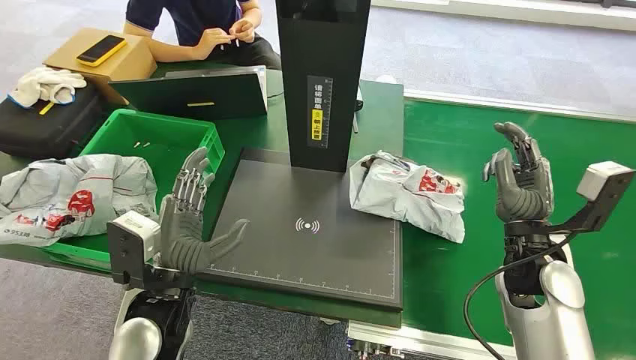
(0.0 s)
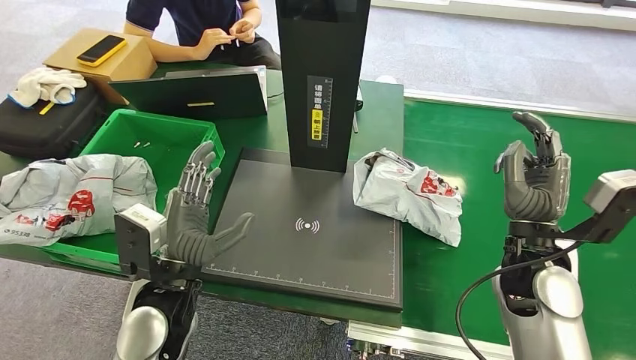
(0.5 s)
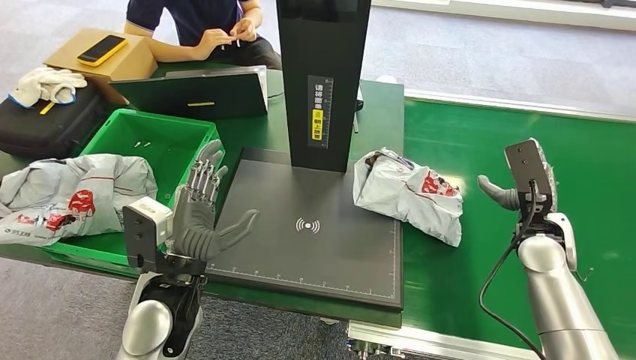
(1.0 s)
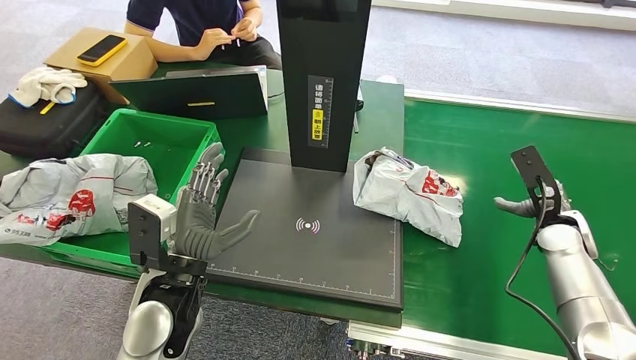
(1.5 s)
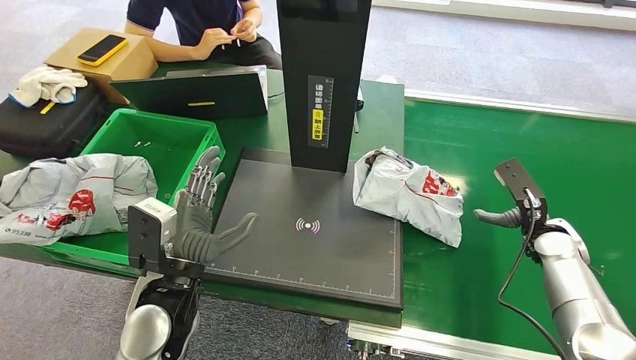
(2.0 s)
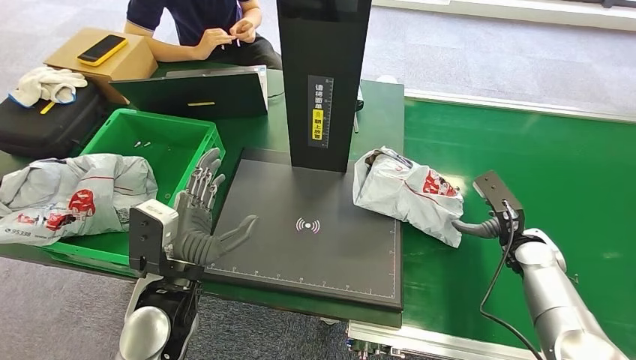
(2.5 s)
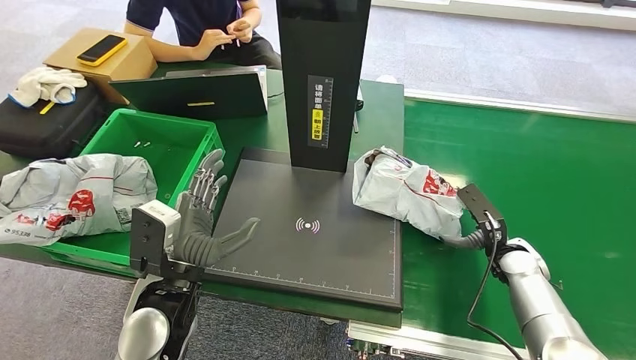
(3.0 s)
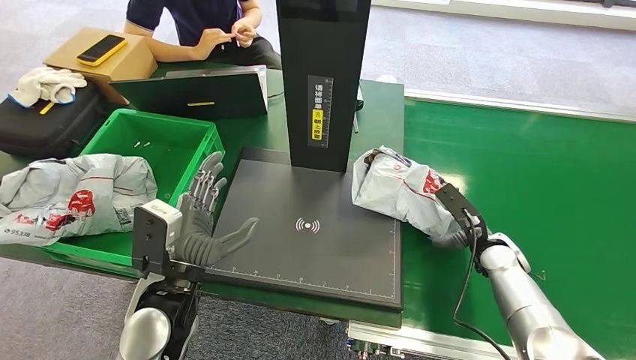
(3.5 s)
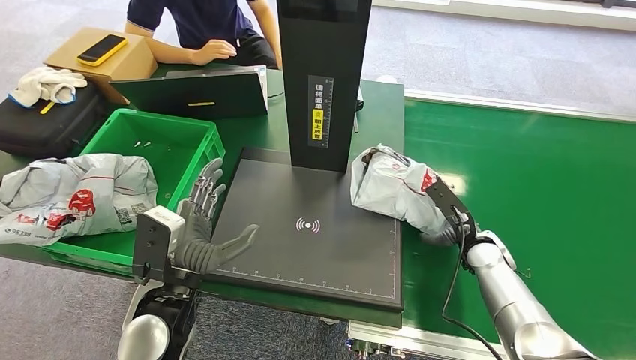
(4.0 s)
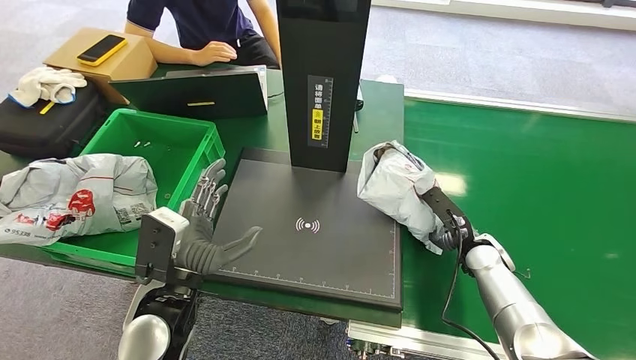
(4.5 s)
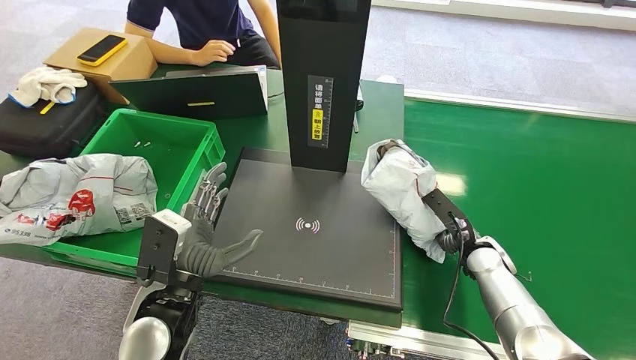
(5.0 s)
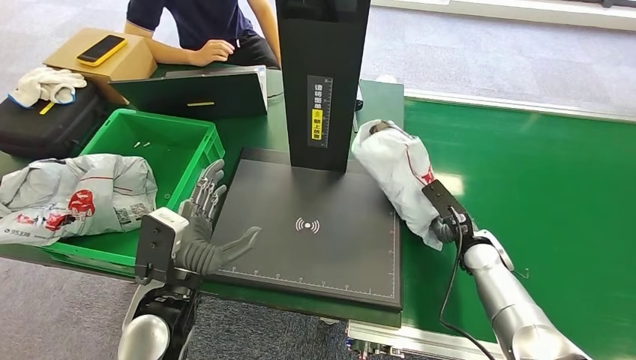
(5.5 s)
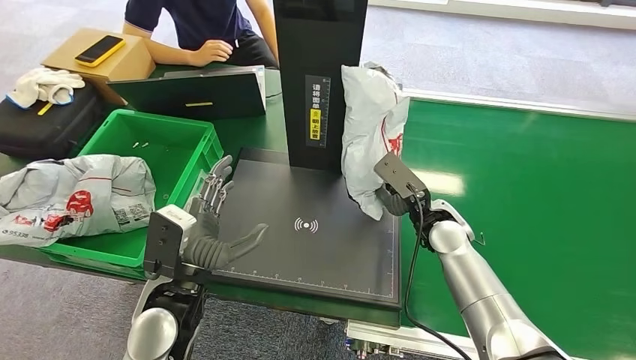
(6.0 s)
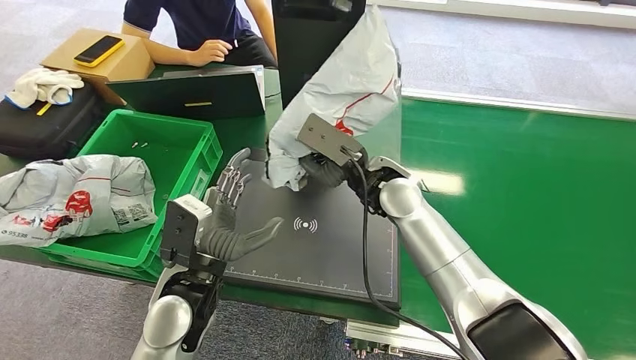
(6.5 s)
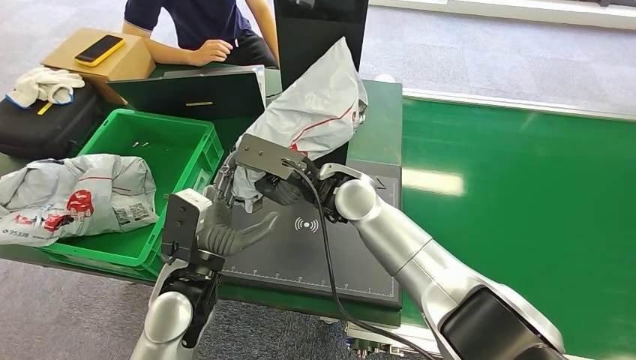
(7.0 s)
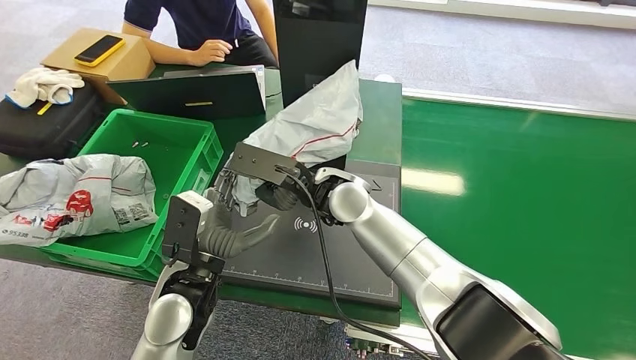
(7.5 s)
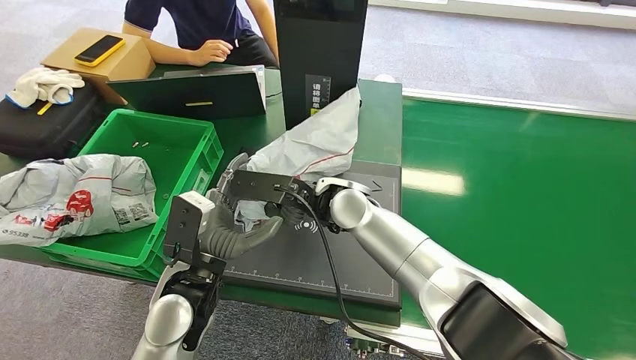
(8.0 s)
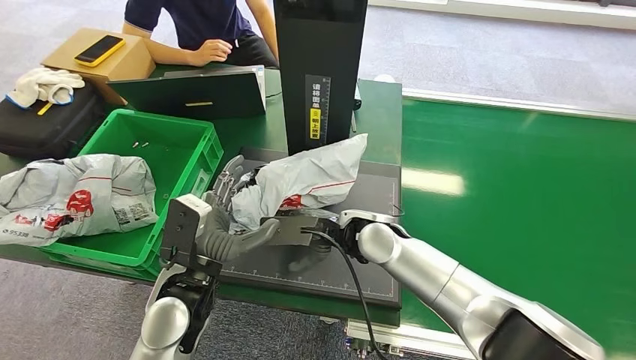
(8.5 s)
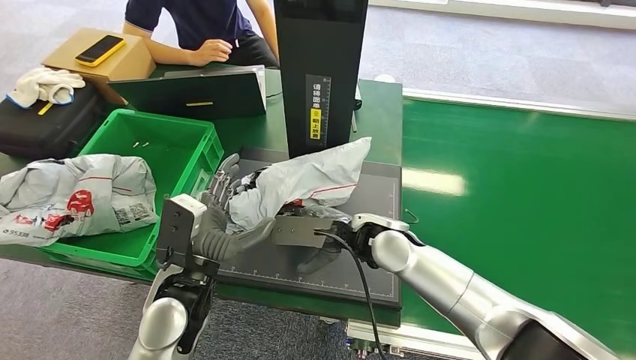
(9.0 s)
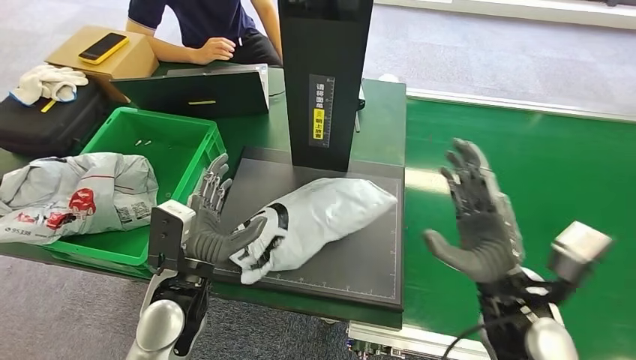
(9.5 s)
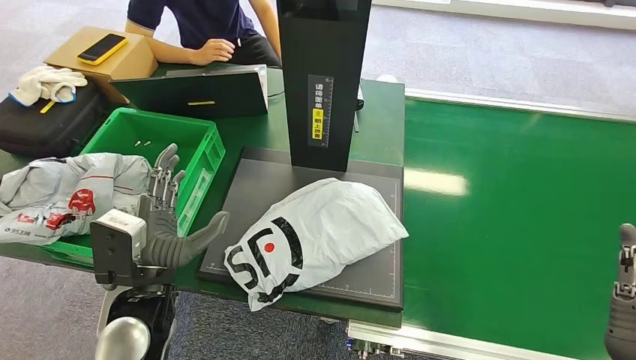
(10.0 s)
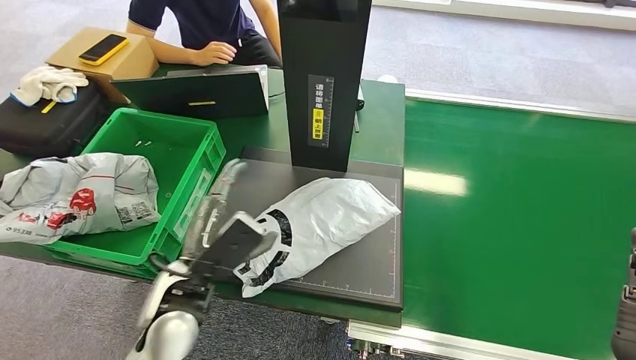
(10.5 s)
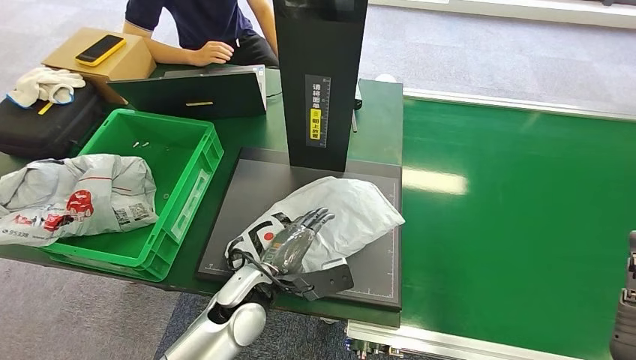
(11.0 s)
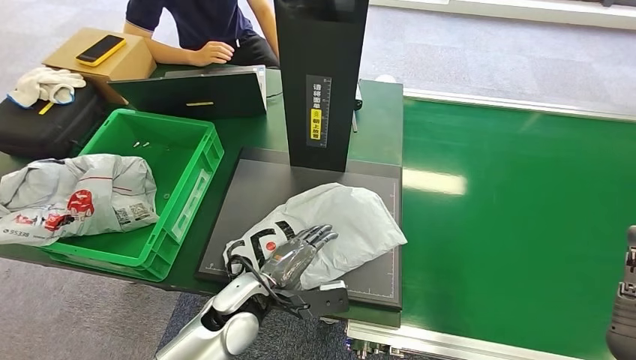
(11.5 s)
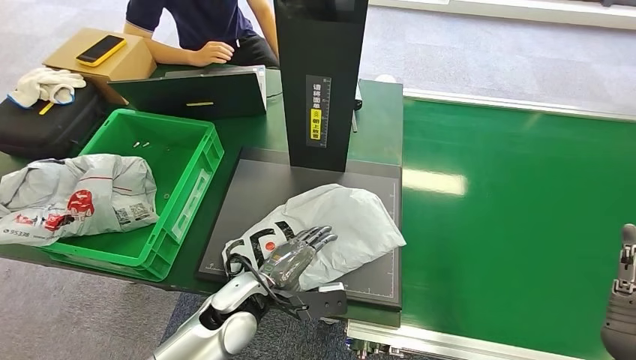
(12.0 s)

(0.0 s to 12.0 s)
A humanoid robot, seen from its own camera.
Step, 0.0 s - 6.0 s: Pick up the package from the conveyor belt.
Step, 6.5 s - 10.0 s: Place the package onto the inbound machine.
2.0 s - 4.0 s: The right hand shifts approximately 10 cm to the left.
10.0 s - 12.0 s: The left hand shifts roughly 10 cm downward.

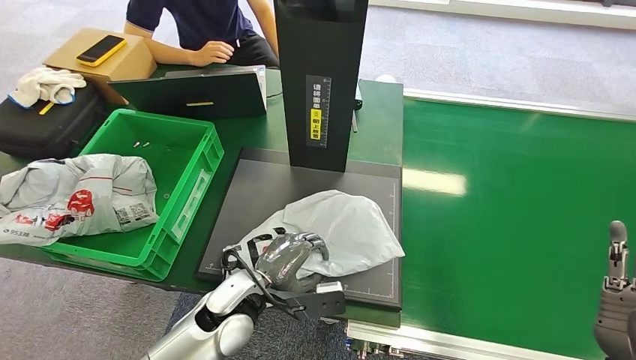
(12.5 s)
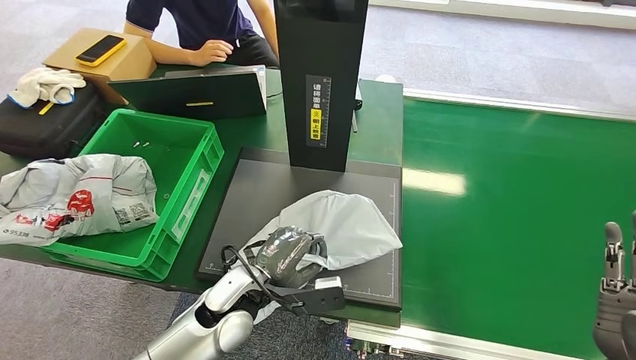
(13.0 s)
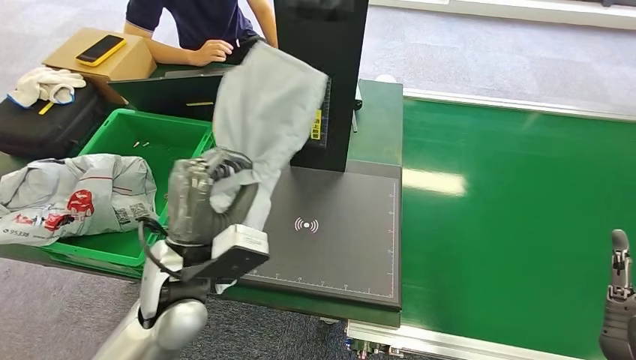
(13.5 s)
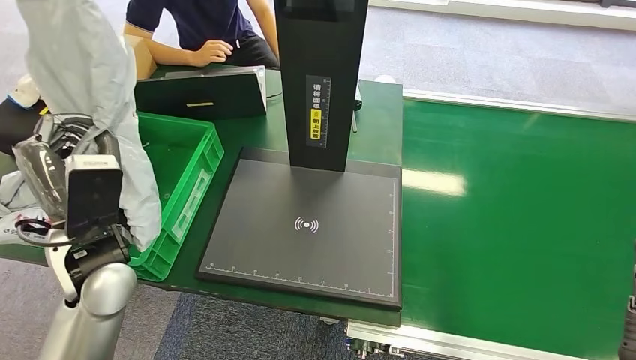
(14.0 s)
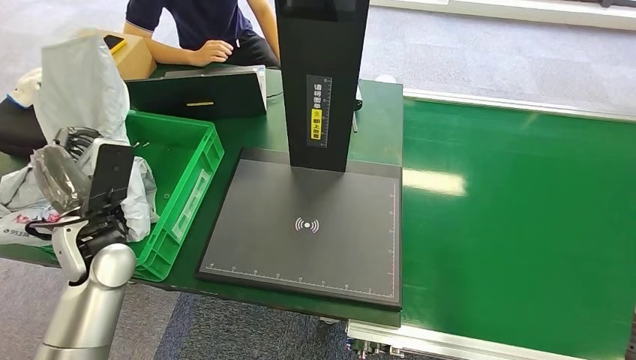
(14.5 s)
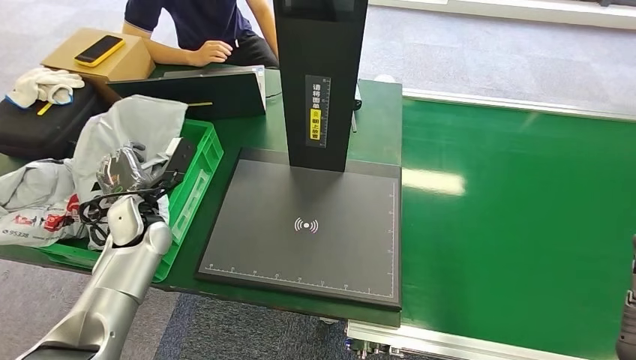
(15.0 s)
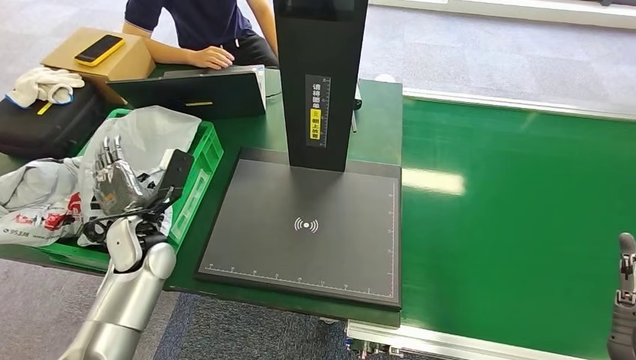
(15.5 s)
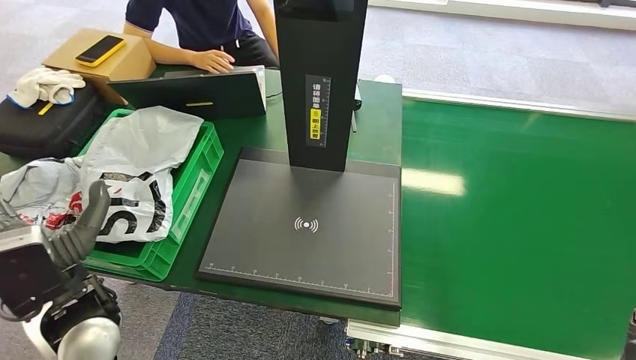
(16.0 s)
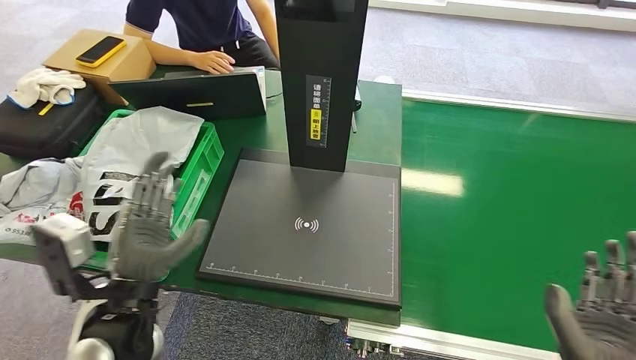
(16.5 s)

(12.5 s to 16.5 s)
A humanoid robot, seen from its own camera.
Step, 14.0 s - 16.5 s: Place the package into the parcel locker.
12.5 s - 14.5 s: The left hand moves to the left, upward and forward, some 20 cm.
14.5 s - 16.5 s: The right hand moves to the left, about 5 cm, while the left hand moves to the right and backward, roughly 15 cm.

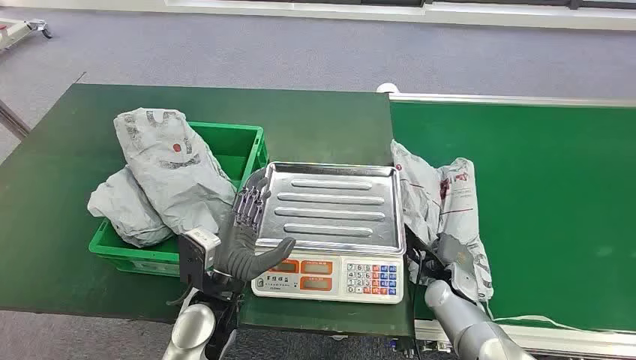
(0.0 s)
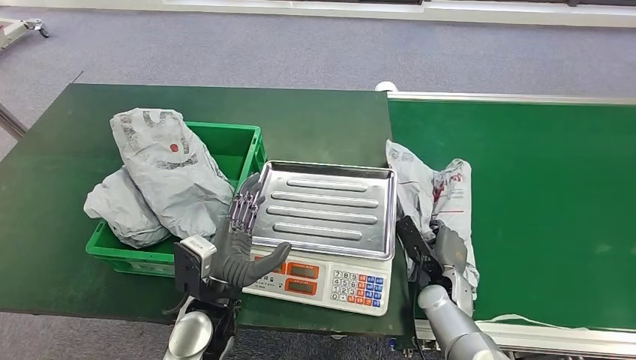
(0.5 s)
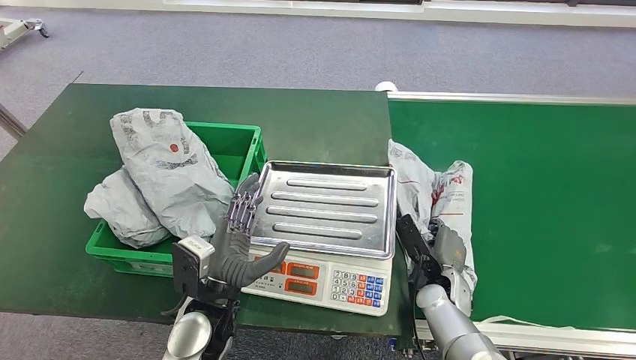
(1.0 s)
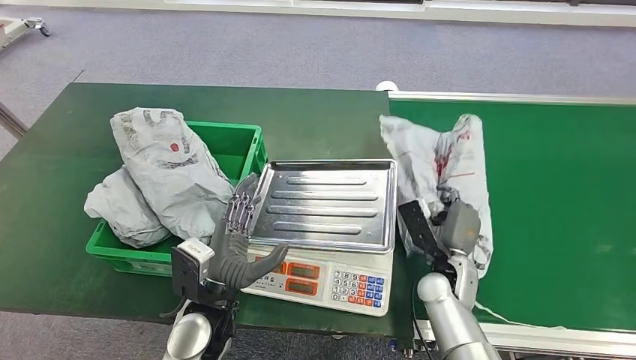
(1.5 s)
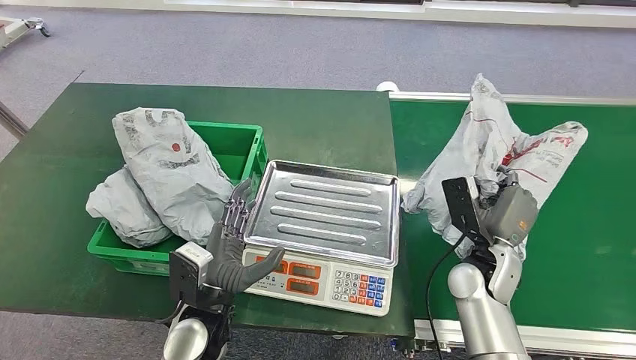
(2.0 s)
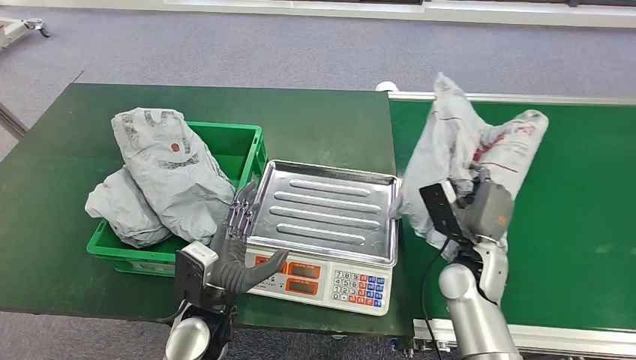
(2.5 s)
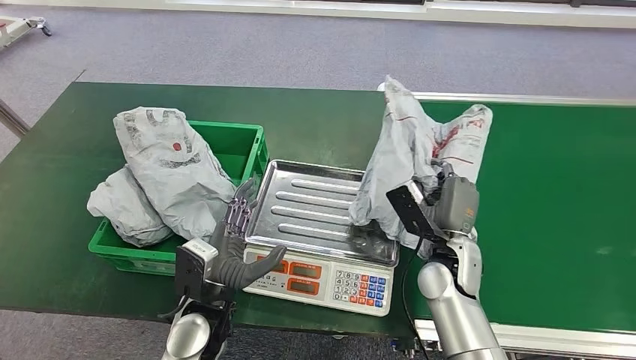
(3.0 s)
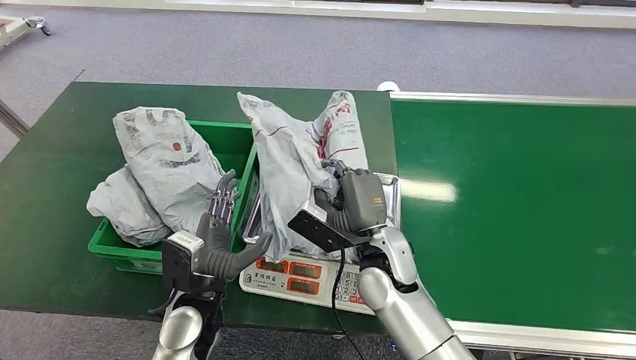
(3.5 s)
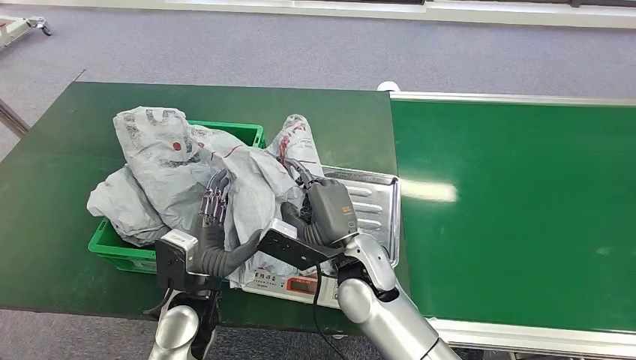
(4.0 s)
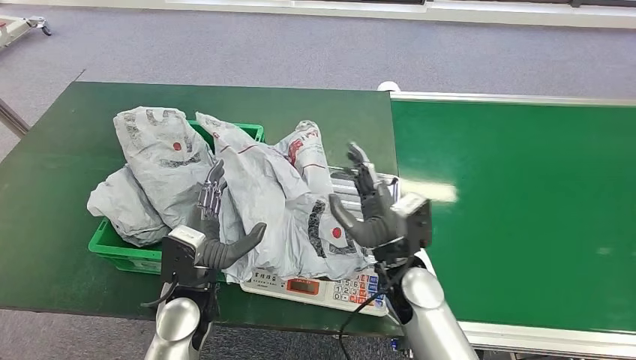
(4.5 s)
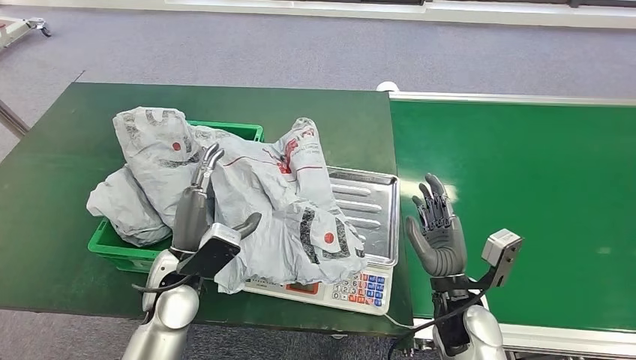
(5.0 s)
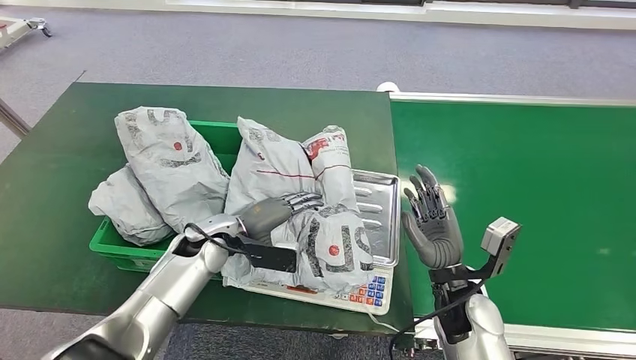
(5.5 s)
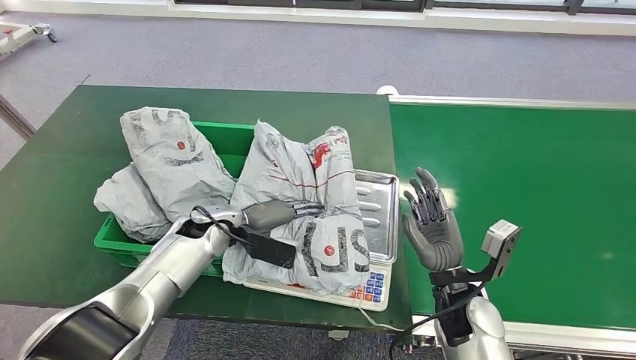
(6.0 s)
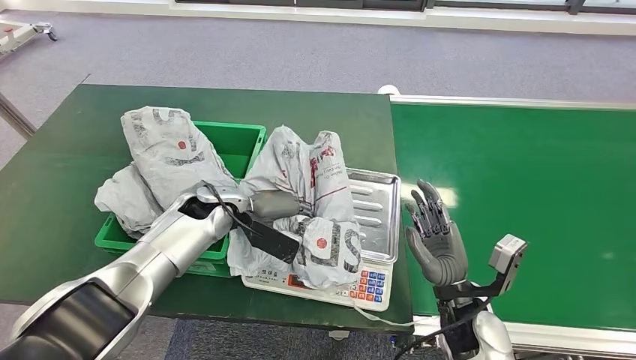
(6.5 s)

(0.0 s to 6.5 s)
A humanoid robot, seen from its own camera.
Step, 0.0 s - 2.0 s: Pick up the package from the conveyor belt.
Step, 2.5 s - 4.0 s: Place the package onto the inbound machine.
